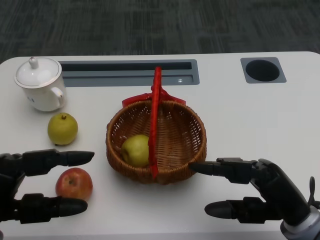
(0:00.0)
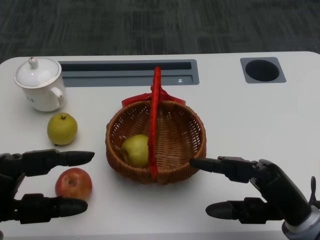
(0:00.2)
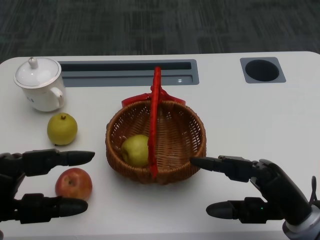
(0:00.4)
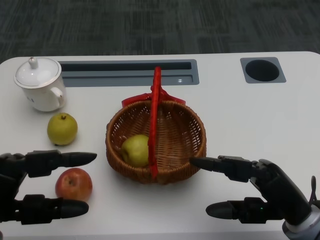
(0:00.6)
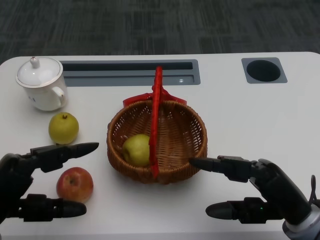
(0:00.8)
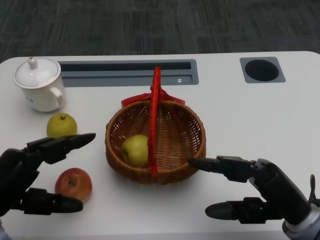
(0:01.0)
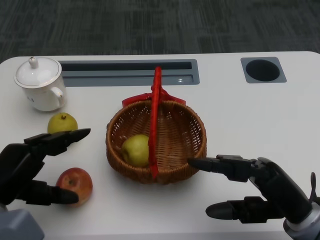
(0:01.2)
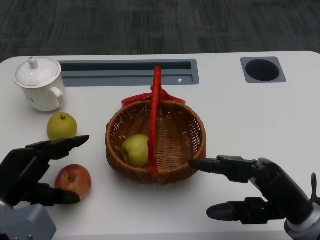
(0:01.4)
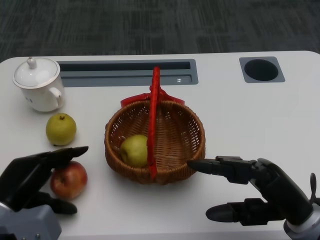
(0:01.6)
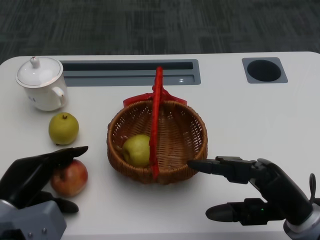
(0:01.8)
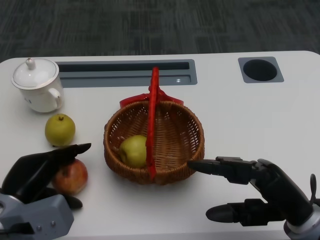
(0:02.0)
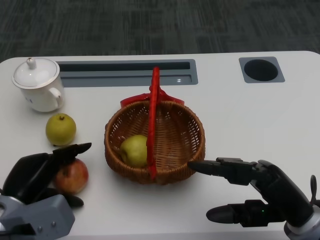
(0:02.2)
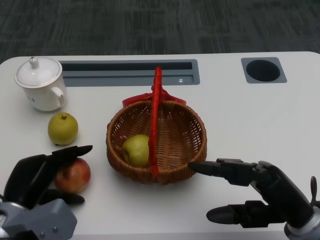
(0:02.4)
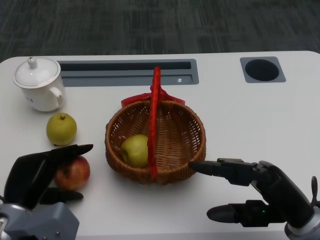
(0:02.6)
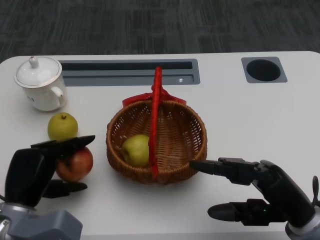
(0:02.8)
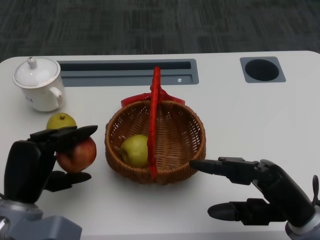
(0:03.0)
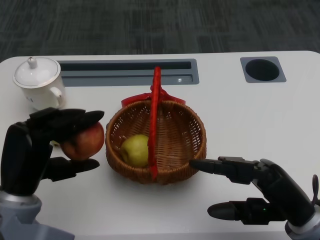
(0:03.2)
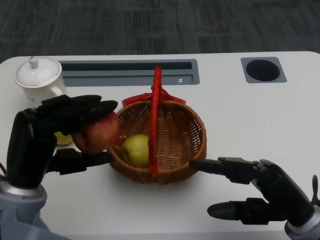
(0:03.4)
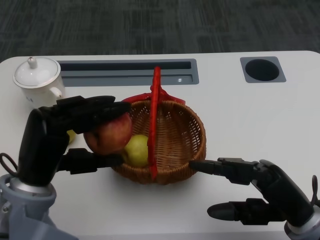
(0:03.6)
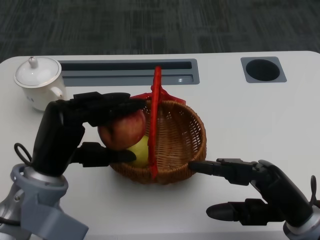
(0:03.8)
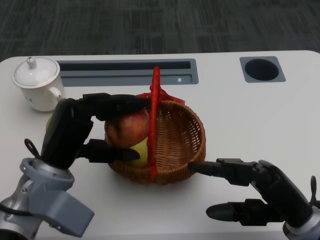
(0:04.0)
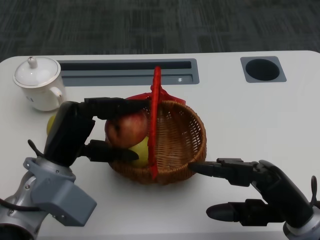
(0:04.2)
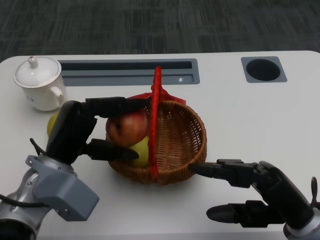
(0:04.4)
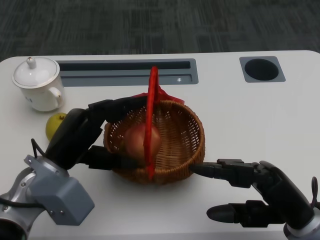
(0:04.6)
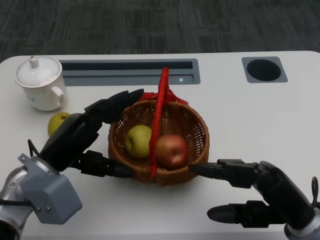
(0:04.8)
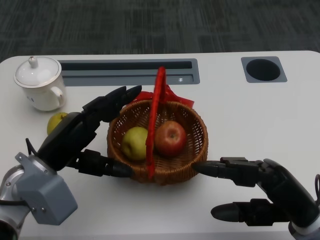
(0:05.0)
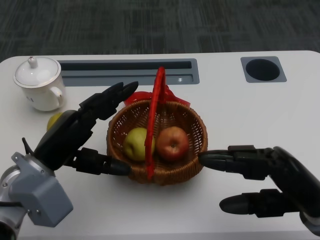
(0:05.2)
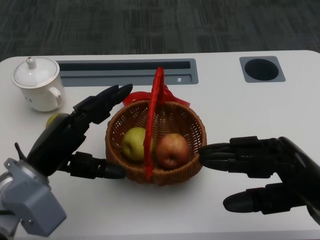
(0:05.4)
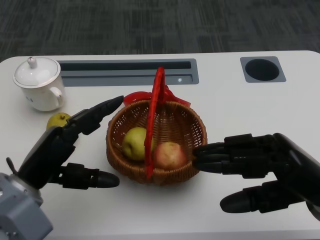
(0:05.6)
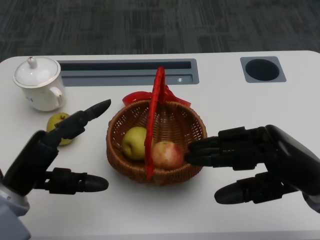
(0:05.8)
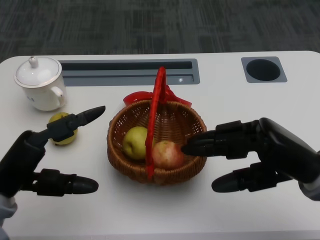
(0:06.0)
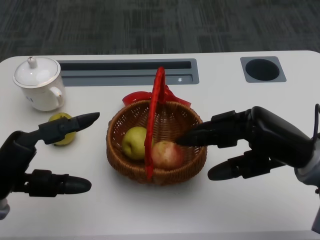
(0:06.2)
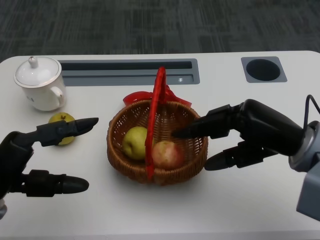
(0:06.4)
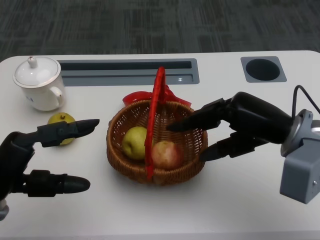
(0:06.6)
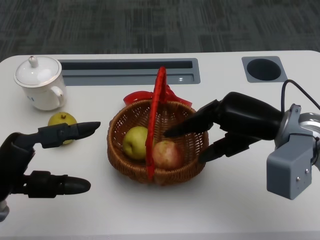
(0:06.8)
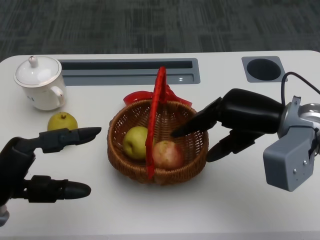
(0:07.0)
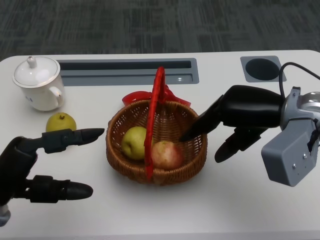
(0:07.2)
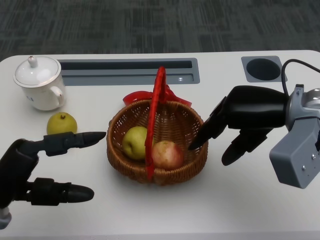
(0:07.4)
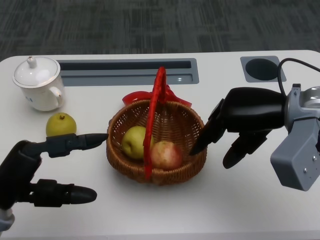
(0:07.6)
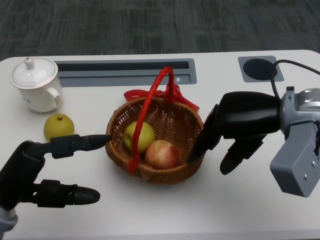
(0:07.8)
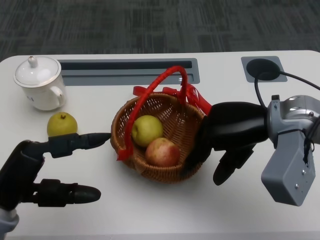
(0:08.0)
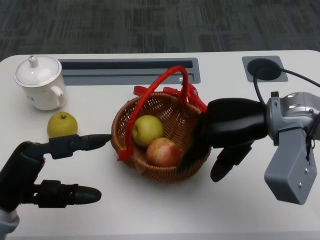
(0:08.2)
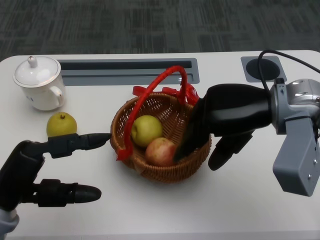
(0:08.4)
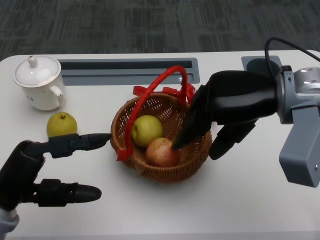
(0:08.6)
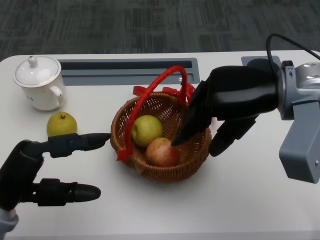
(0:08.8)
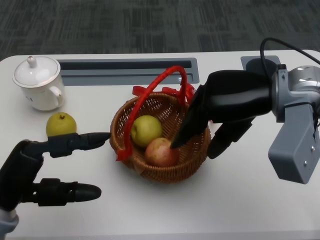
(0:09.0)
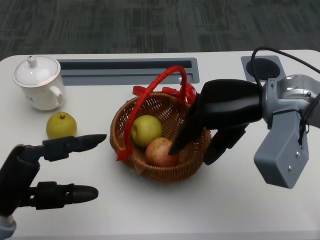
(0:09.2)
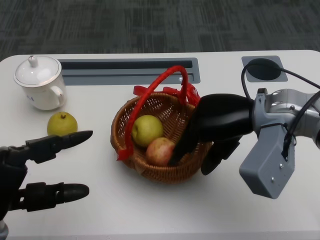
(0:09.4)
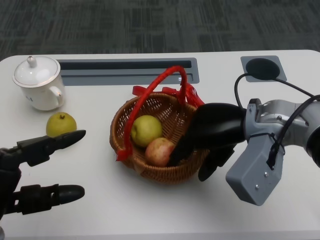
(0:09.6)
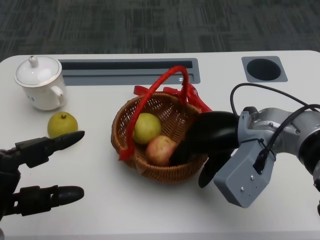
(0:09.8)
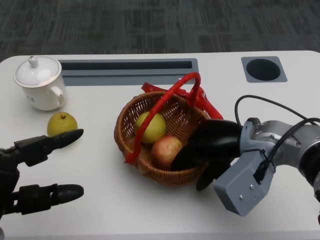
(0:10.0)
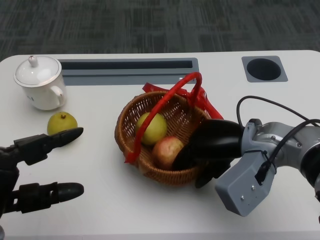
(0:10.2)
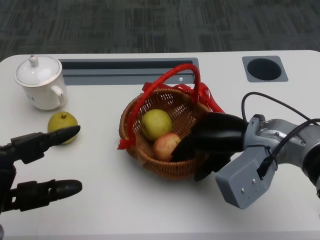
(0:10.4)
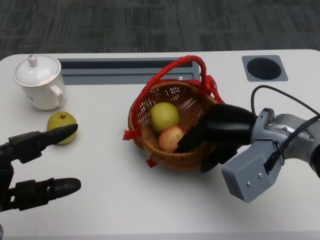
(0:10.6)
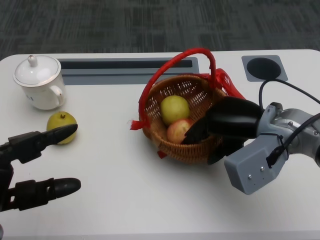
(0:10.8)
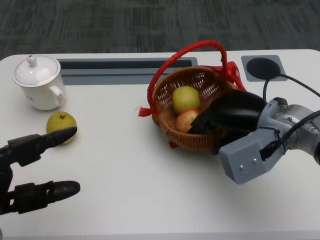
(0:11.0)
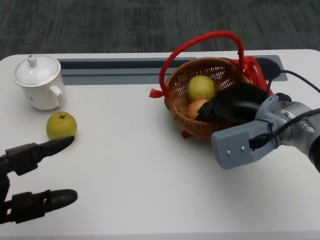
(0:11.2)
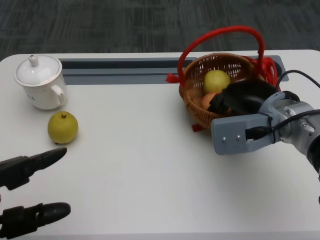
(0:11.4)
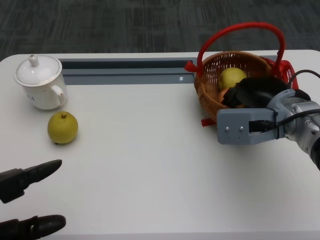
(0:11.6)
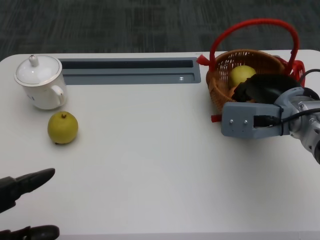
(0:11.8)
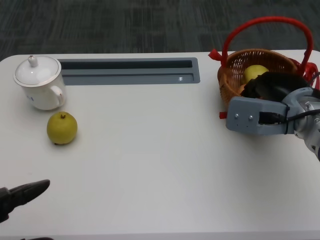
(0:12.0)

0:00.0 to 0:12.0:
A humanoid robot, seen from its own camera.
Step, 0:00.6 to 0:01.8: Grasp the apple with the left gripper.
Step, 0:02.0 to 0:04.0: Place the apple into the basket with the left gripper.
Step, 0:04.2 to 0:07.8: Grasp the basket with the right gripper.
Step, 0:08.2 to 0:10.2: Move the basket to the front of the table with the right gripper.
0:03.0 to 0:04.4: The left hand shifts roughly 5 cm upward.
0:04.4 to 0:06.0: The right hand moves upward, approximately 5 cm; the left hand is displaced to the left by roughly 5 cm.
0:06.0 to 0:07.6: The right hand travels forward by roughly 10 cm.
0:07.6 to 0:09.0: The hands stay close to where they were, moving slightly.
0:09.0 to 0:10.4: The right hand travels downward by roughly 10 cm.
0:10.4 to 0:12.0: The right hand is displaced to the right by about 5 cm, while the left hand goes about 10 cm backward.

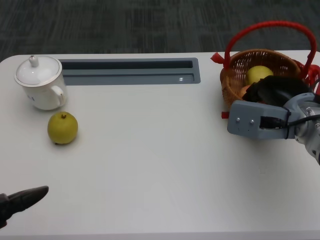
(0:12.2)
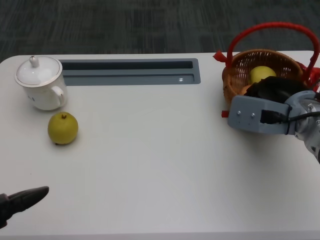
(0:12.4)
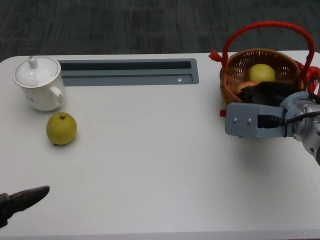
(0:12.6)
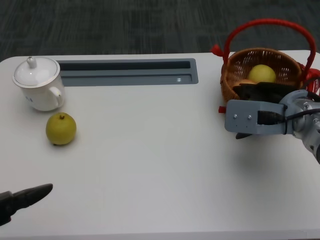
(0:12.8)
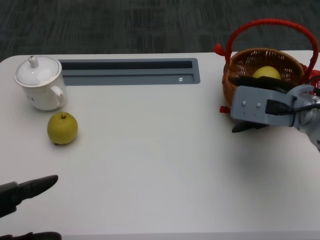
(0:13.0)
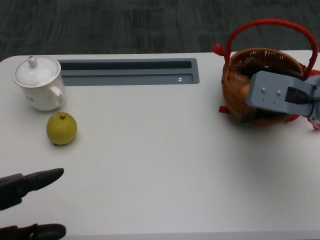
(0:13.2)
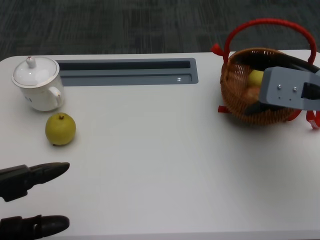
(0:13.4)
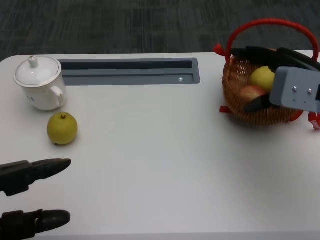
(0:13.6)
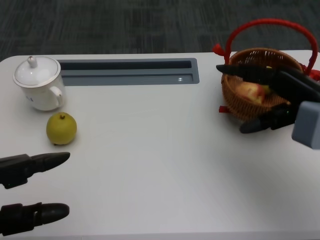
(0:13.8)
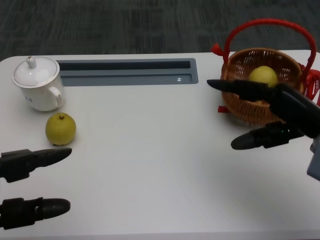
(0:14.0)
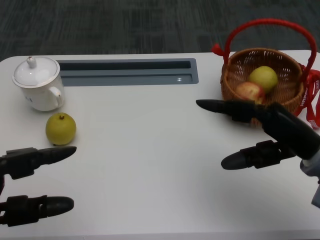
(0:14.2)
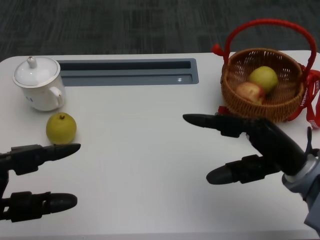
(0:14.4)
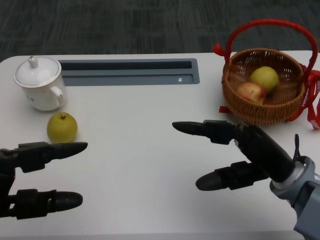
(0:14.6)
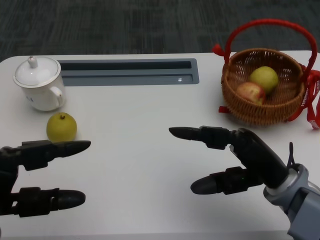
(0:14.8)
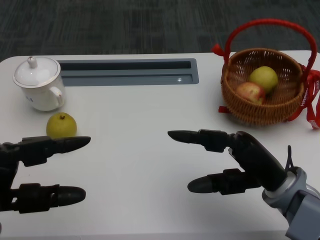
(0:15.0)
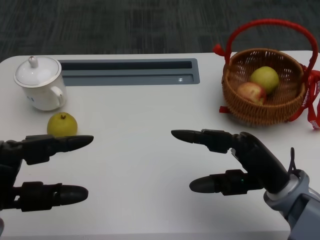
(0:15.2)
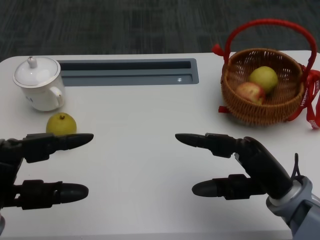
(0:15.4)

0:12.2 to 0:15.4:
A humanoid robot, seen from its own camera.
0:12.2 to 0:13.8: The right hand changes place by some 5 cm; the left hand is displaced forward by approximately 5 cm.
0:13.8 to 0:15.4: The right hand is displaced backward, downward and to the left by roughly 15 cm.

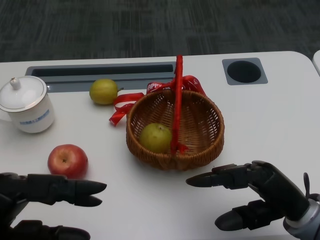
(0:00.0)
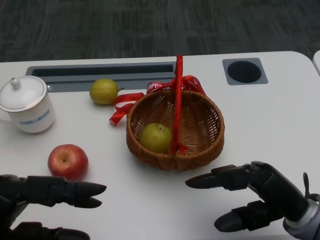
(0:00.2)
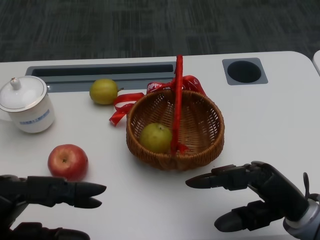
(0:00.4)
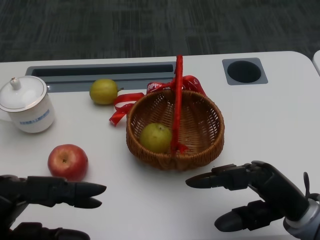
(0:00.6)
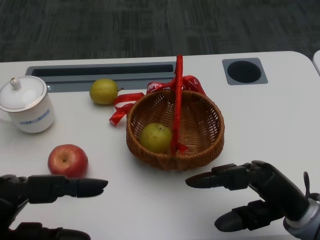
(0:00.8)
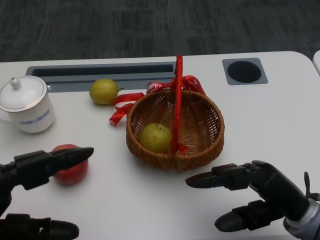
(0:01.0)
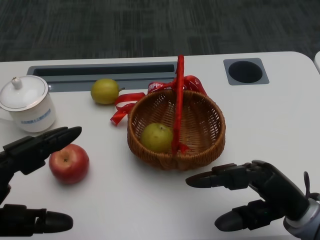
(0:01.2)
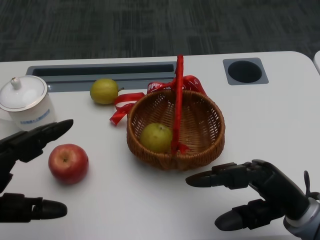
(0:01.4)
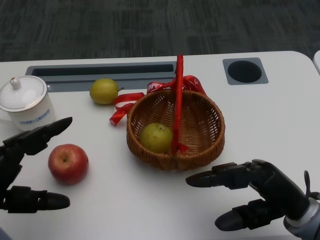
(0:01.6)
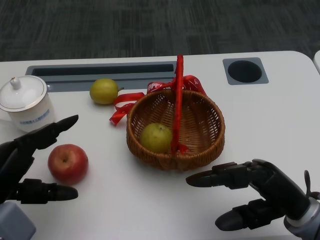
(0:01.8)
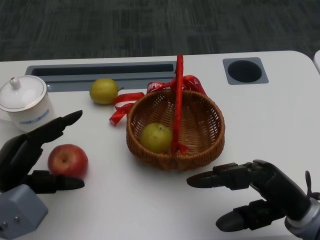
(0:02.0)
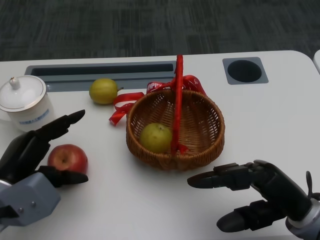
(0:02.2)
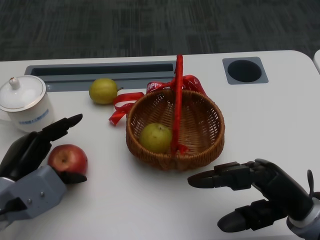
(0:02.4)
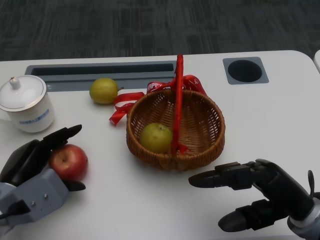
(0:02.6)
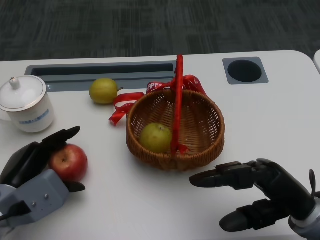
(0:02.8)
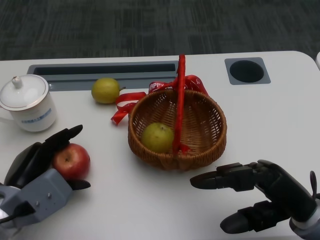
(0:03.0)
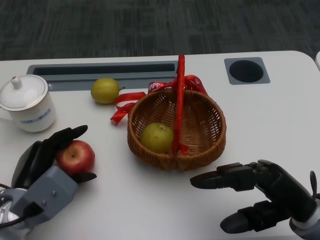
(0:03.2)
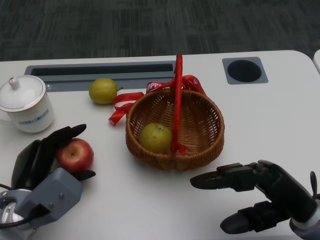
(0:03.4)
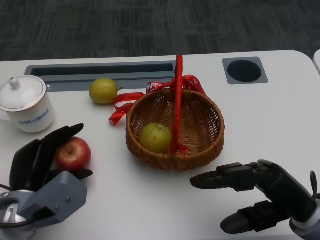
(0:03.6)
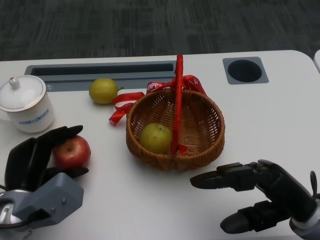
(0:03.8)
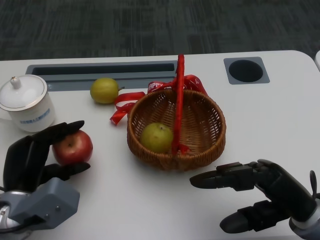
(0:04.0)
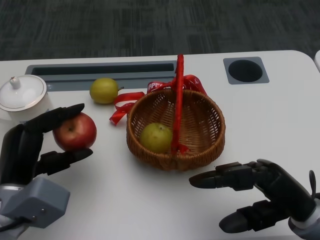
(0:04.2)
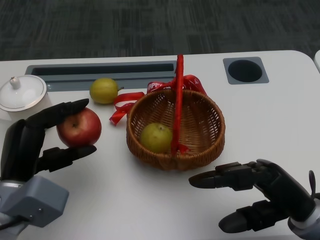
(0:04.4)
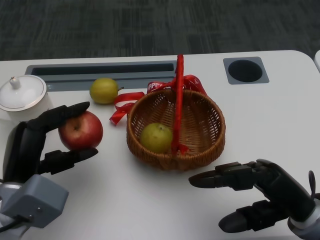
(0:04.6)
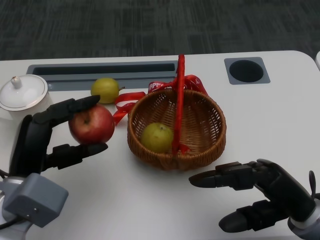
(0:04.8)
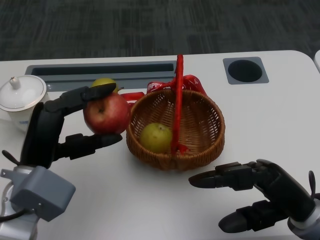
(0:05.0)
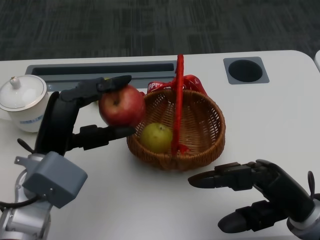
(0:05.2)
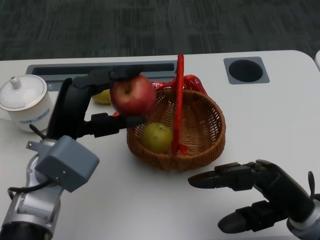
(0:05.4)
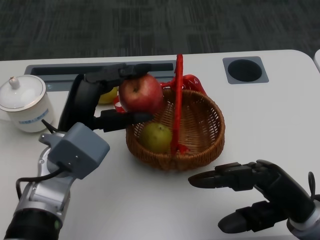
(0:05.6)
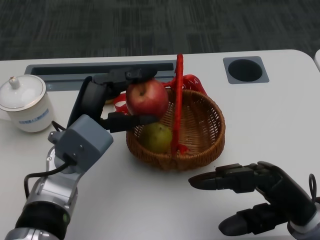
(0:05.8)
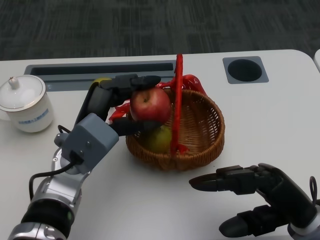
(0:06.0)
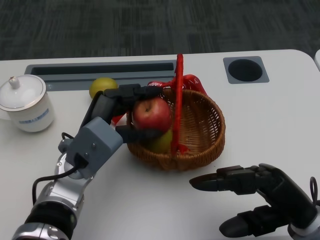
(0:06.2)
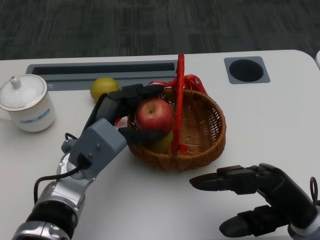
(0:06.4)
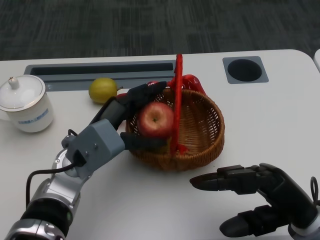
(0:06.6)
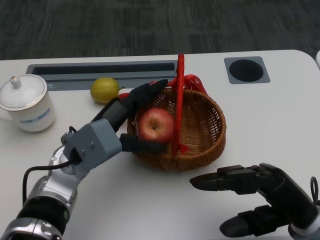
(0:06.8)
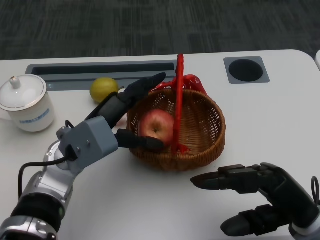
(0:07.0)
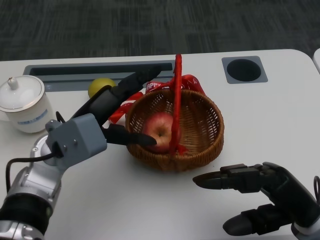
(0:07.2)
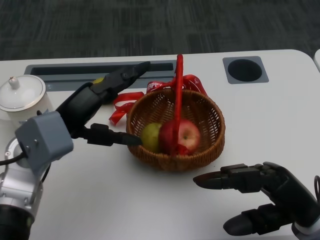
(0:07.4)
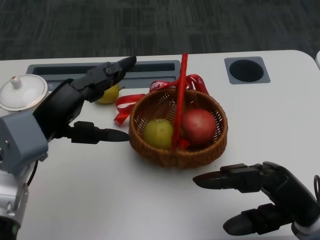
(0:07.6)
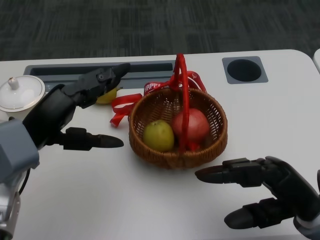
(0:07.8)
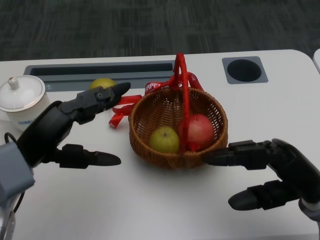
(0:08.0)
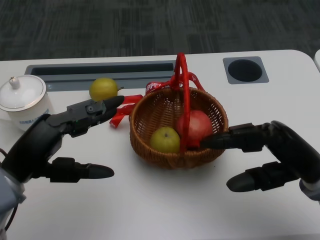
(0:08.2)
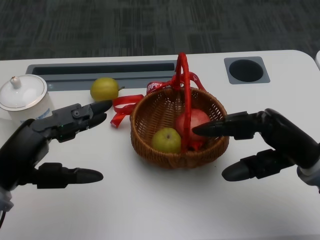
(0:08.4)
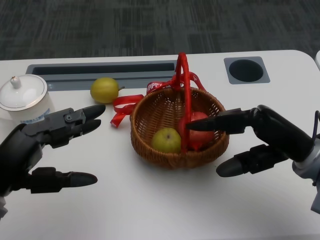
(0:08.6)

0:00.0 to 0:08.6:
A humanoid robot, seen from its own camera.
Step, 0:00.6 to 0:02.6: Grasp the apple with the left gripper.
Step, 0:02.8 to 0:05.6: Place the apple into the basket with the left gripper.
0:01.4 to 0:02.8: The left hand goes roughly 10 cm forward and downward.
0:04.4 to 0:05.8: The left hand travels to the right and forward by approximately 10 cm.
0:07.2 to 0:08.6: The left hand is displaced to the left and backward by roughly 15 cm. Meanwhile the right hand goes roughly 5 cm forward.
